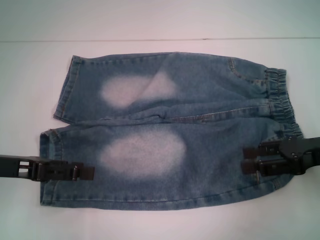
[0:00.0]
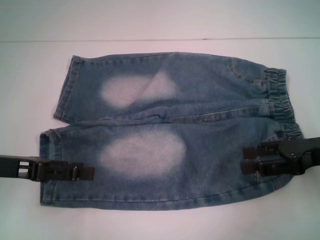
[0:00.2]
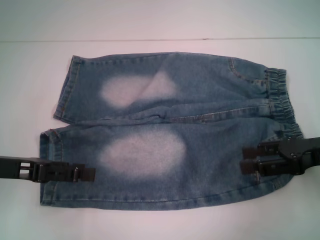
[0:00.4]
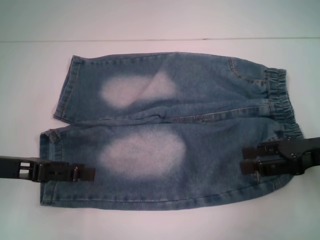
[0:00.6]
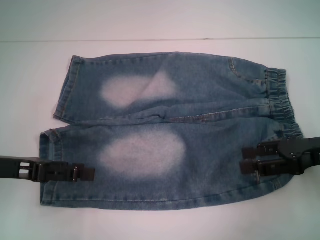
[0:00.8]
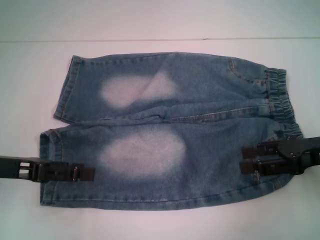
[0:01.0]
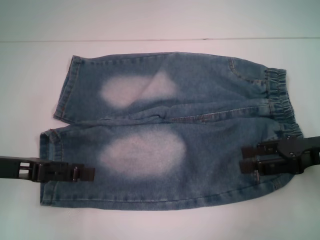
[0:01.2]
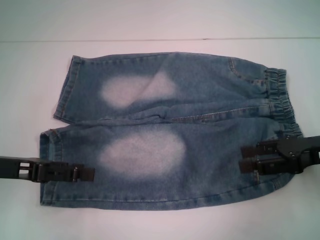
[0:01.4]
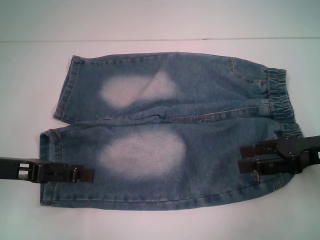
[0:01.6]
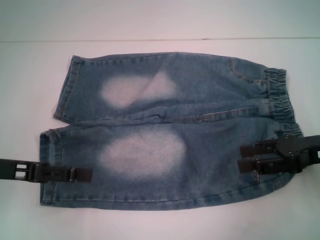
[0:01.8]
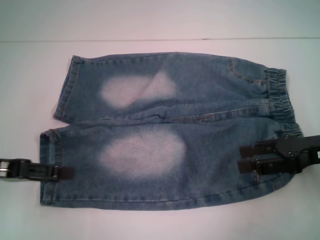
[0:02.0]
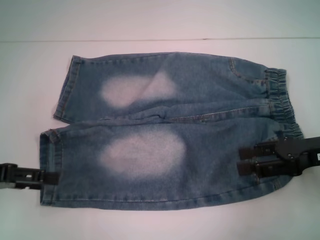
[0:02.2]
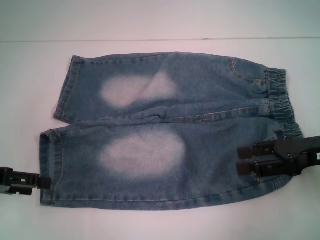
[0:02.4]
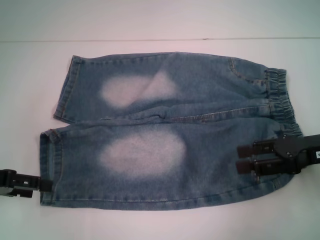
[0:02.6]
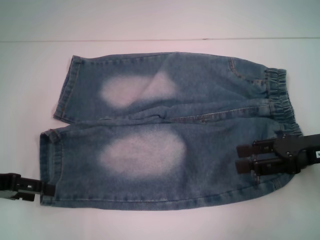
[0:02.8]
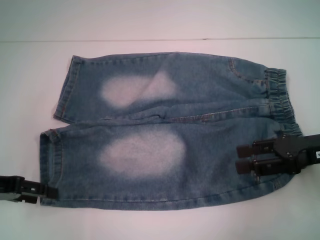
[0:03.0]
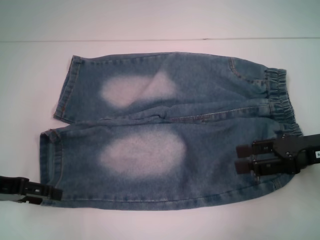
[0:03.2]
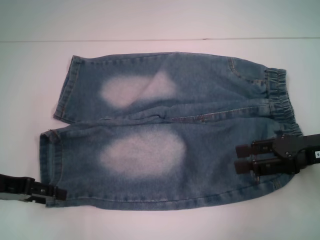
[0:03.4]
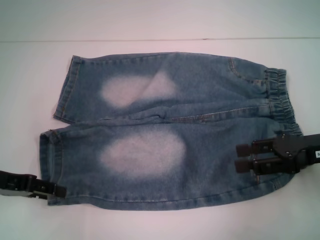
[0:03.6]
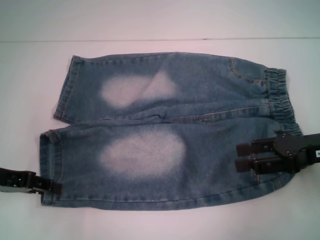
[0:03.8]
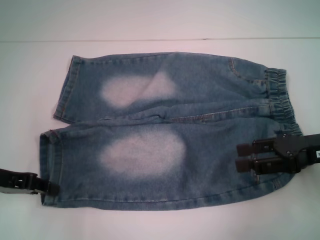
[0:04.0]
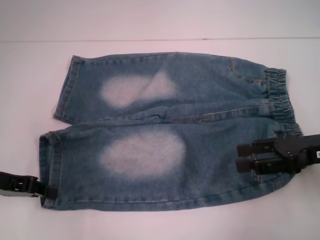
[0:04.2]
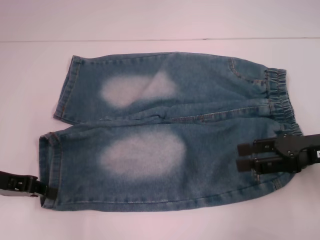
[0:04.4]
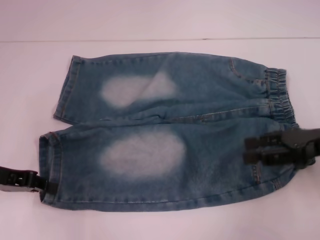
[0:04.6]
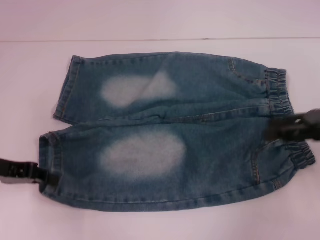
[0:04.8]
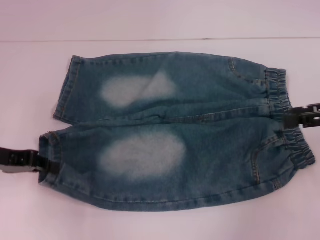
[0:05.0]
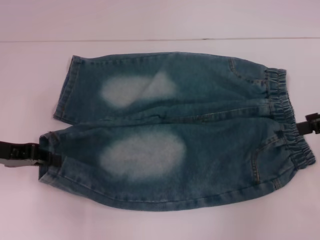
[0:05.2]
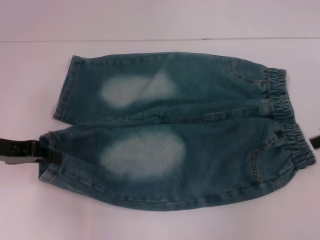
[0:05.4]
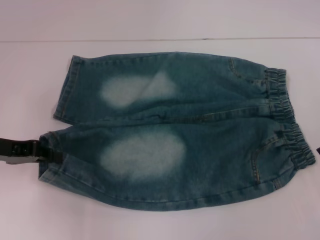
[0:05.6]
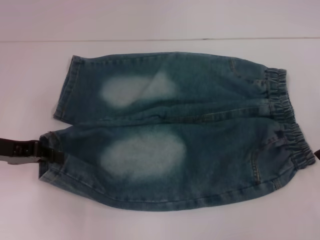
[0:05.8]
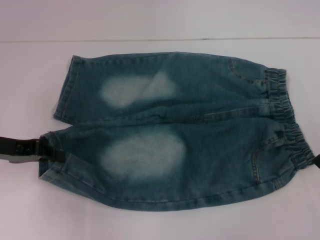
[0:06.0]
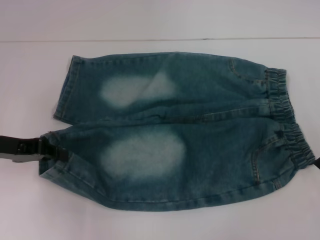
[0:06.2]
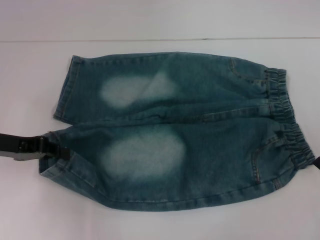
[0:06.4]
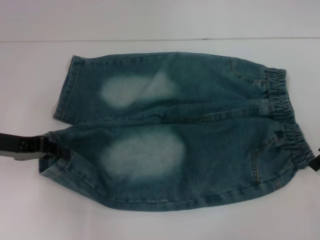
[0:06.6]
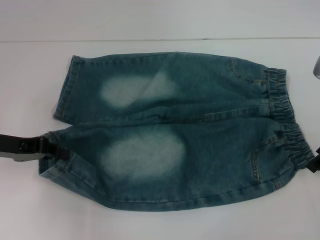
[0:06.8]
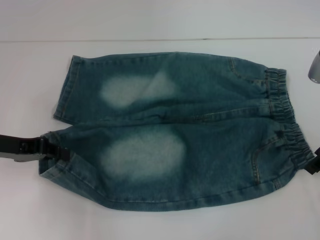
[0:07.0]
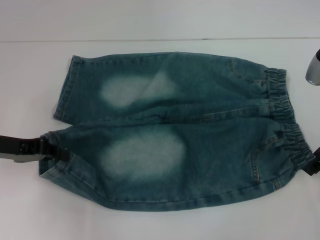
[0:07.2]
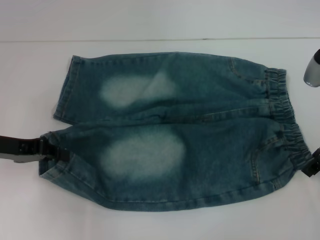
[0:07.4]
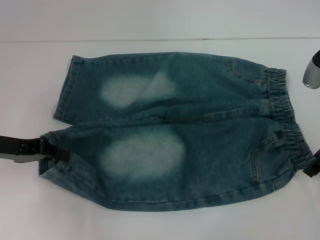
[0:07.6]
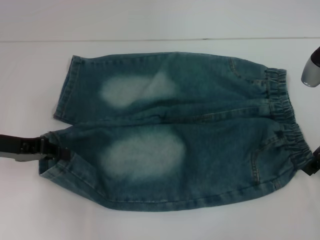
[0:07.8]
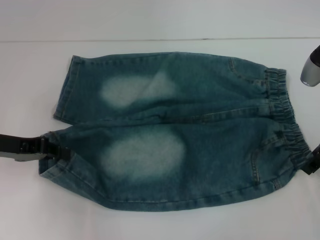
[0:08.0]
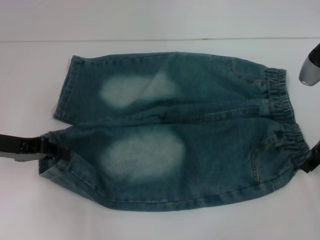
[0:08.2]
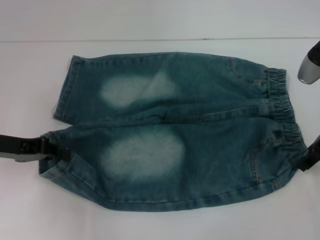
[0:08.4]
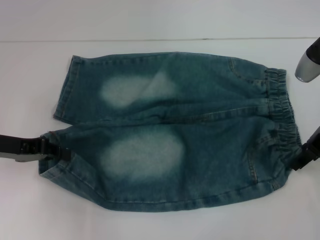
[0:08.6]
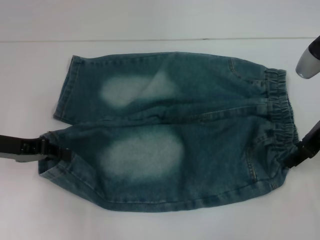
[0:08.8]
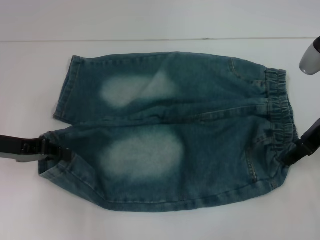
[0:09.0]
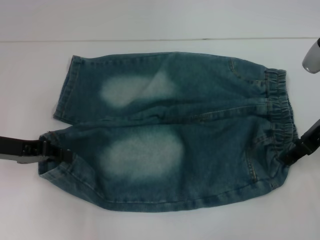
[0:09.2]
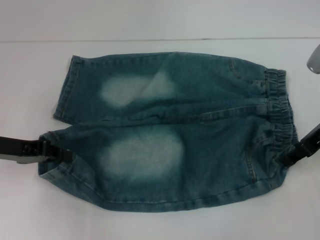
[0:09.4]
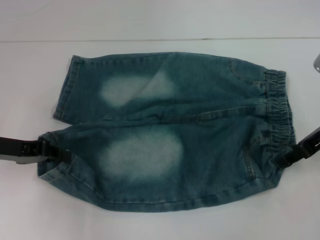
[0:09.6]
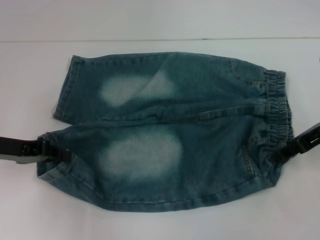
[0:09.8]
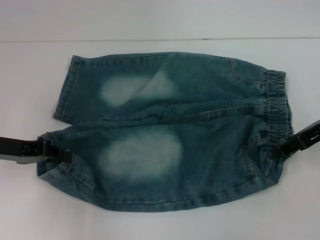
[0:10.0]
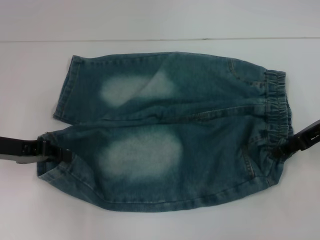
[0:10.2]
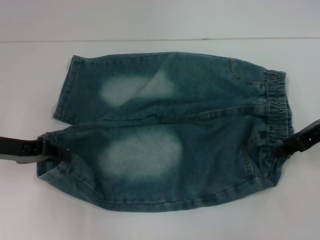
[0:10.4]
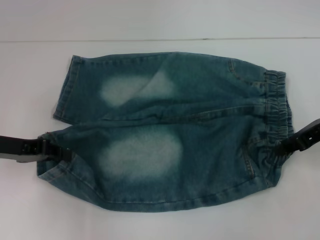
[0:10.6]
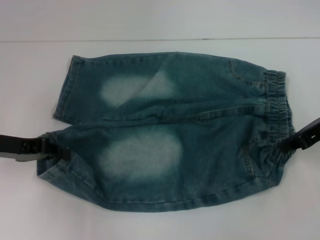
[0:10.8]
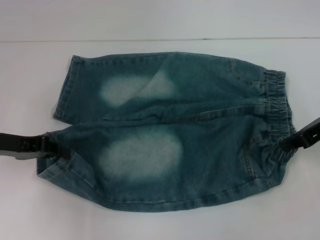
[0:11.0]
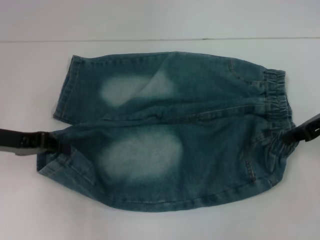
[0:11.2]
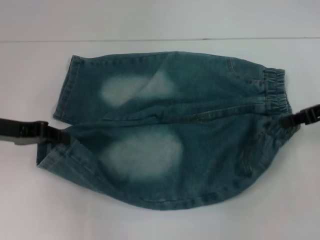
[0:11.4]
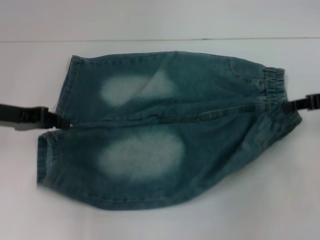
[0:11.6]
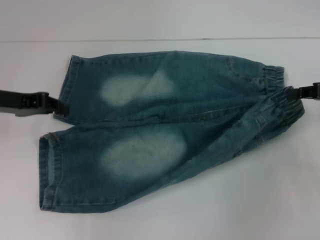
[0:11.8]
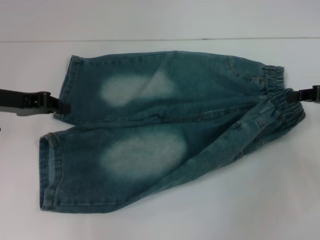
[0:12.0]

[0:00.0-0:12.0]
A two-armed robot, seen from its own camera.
Step, 0:00.0 to 0:04.2: Grab the lower left pant leg with your left hand.
Step, 0:04.6 to 0:08.6: Hold the lower right waistband with your right hand.
0:00.0 to 0:01.6: Both grippers stay put.
0:03.0 to 0:04.4: The left gripper closes.
0:04.4 to 0:06.0: The right gripper is displaced upward and forward by about 10 cm.
0:06.0 to 0:10.4: The grippers stay close to where they were, moving slightly.
0:10.4 to 0:12.0: The right gripper shifts roughly 5 cm to the right, and closes up. Meanwhile the left gripper ends up approximately 5 cm from where it was.

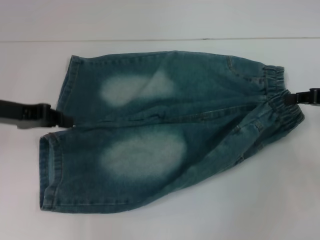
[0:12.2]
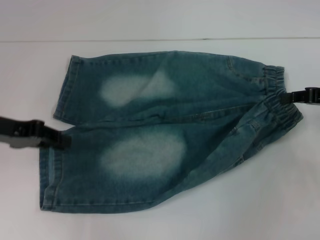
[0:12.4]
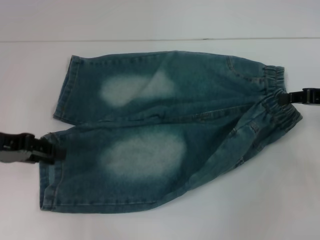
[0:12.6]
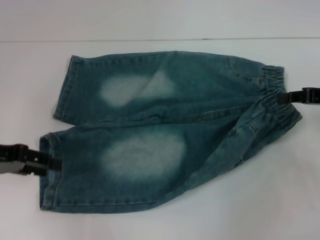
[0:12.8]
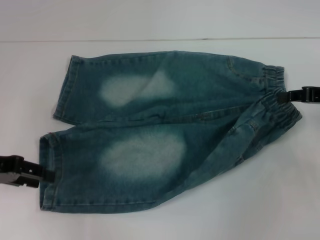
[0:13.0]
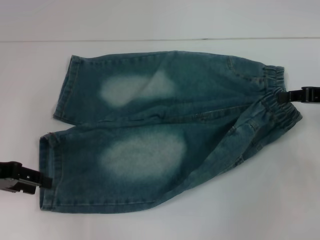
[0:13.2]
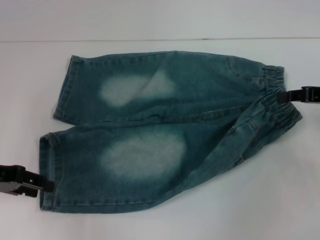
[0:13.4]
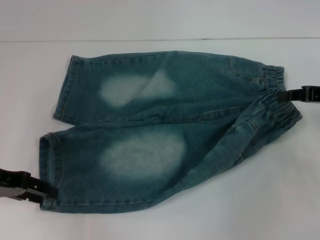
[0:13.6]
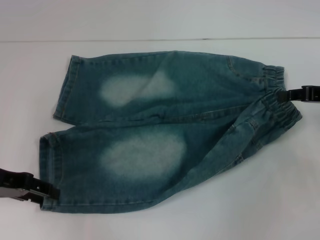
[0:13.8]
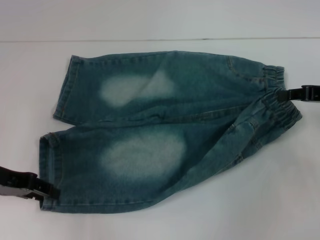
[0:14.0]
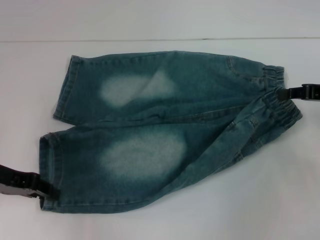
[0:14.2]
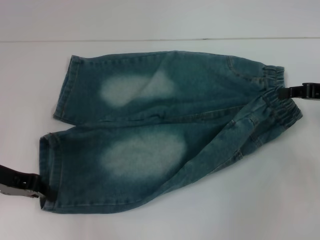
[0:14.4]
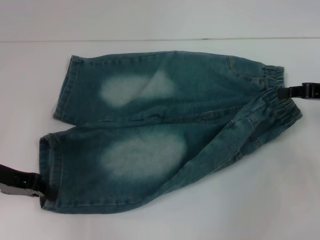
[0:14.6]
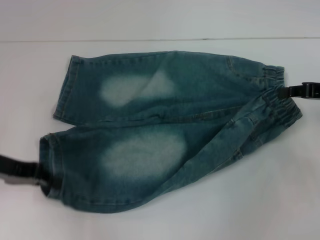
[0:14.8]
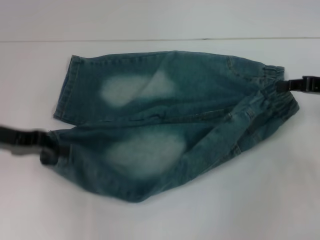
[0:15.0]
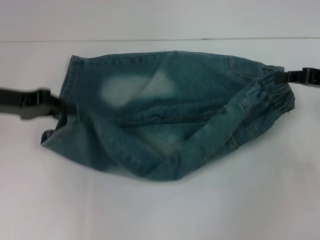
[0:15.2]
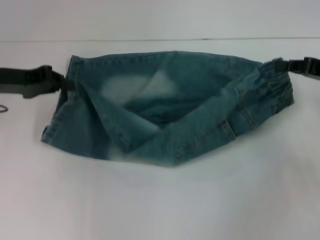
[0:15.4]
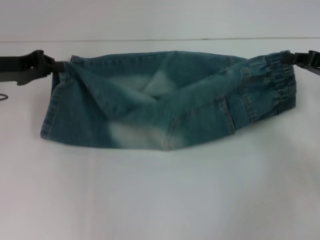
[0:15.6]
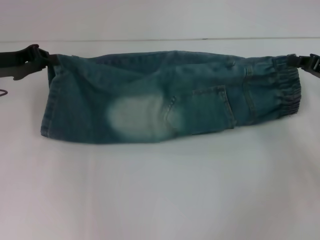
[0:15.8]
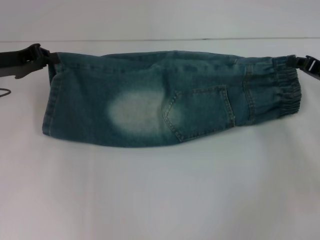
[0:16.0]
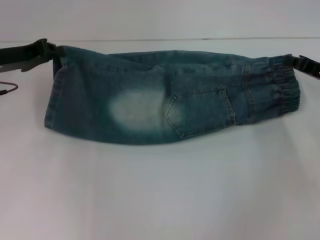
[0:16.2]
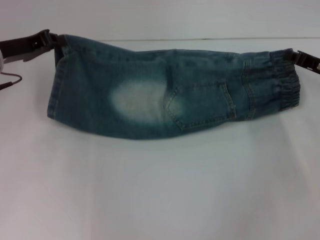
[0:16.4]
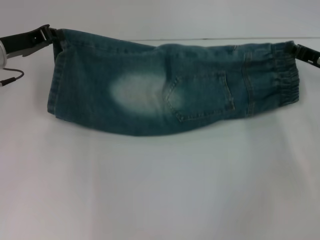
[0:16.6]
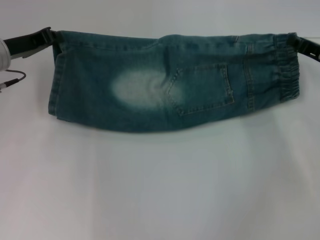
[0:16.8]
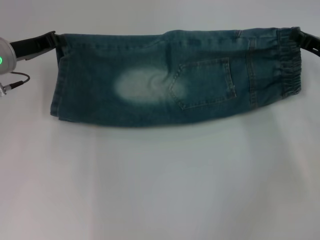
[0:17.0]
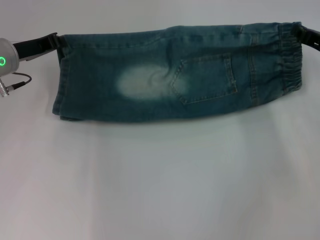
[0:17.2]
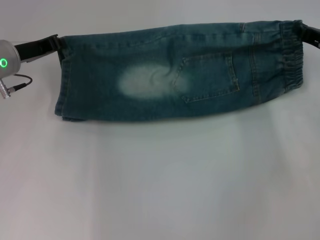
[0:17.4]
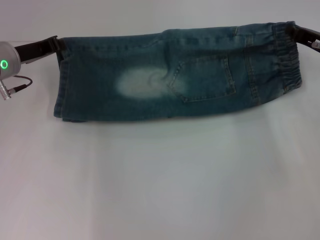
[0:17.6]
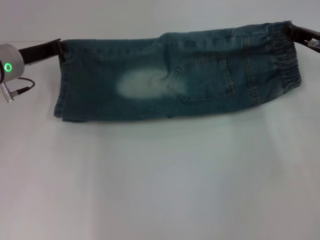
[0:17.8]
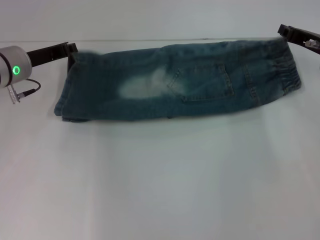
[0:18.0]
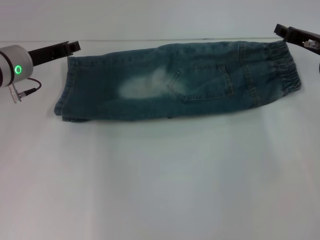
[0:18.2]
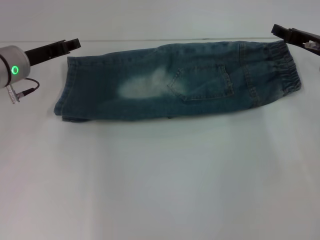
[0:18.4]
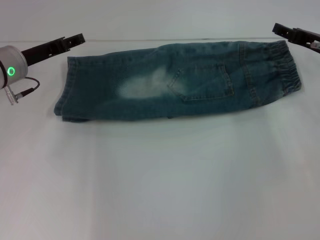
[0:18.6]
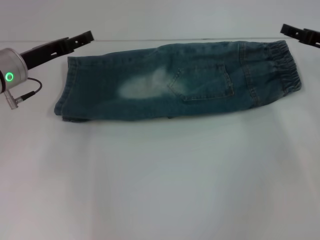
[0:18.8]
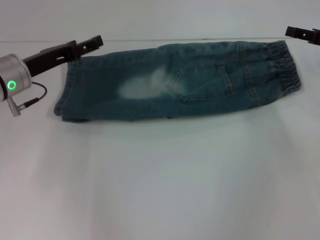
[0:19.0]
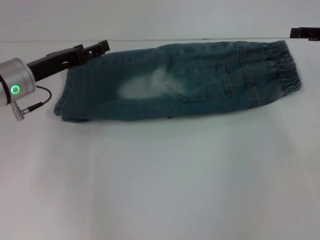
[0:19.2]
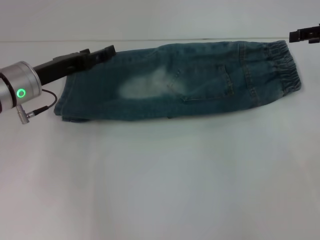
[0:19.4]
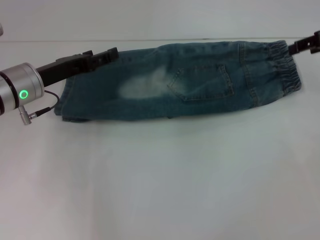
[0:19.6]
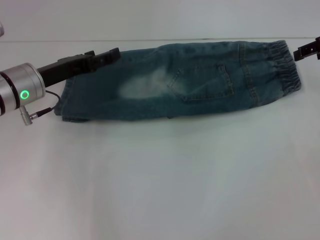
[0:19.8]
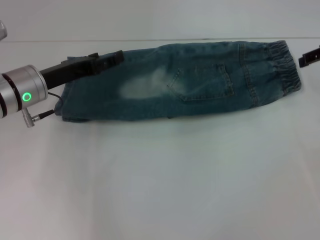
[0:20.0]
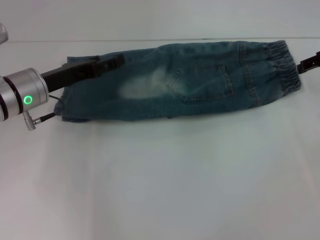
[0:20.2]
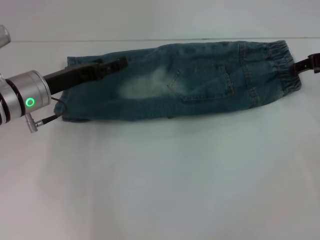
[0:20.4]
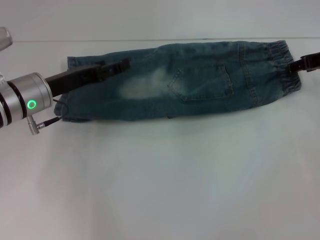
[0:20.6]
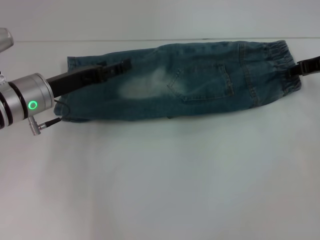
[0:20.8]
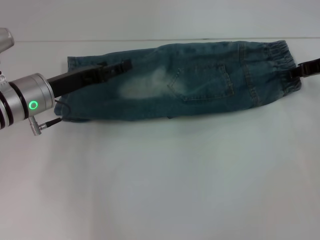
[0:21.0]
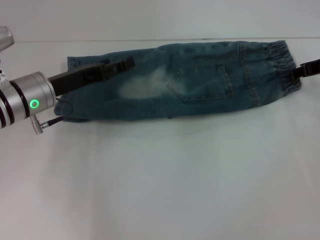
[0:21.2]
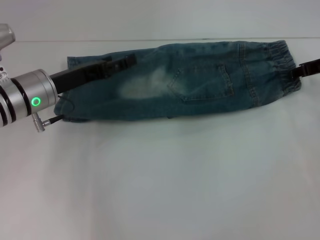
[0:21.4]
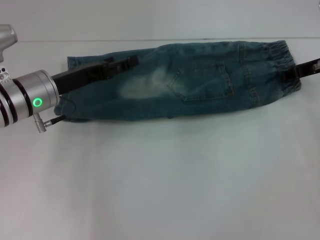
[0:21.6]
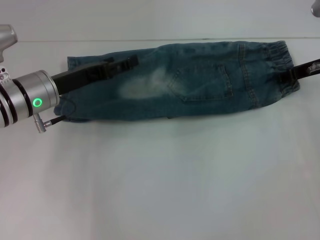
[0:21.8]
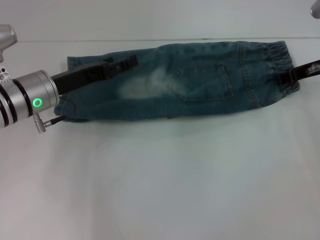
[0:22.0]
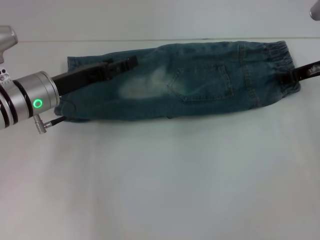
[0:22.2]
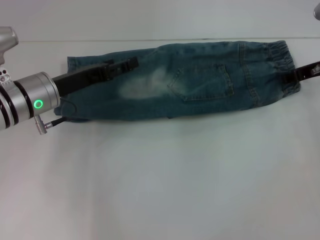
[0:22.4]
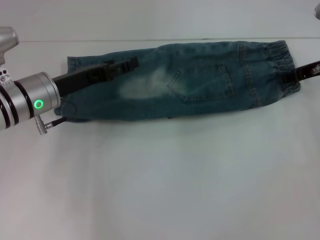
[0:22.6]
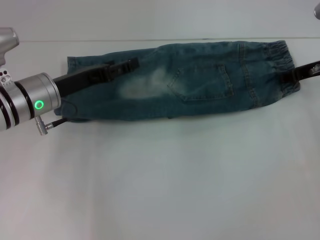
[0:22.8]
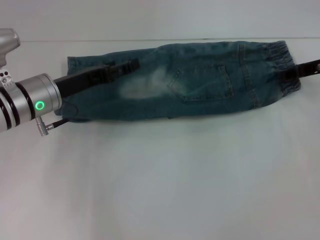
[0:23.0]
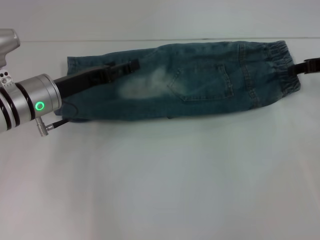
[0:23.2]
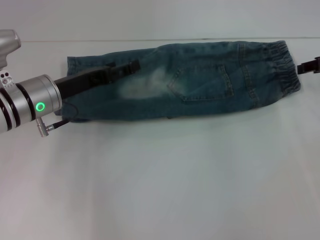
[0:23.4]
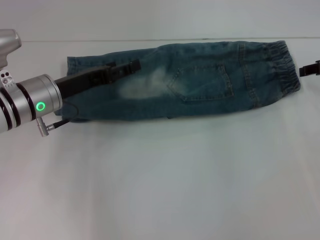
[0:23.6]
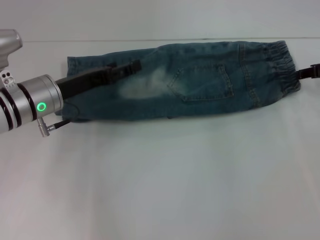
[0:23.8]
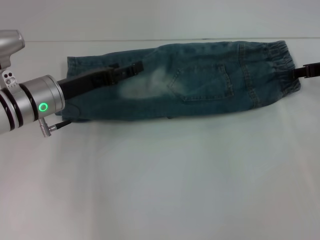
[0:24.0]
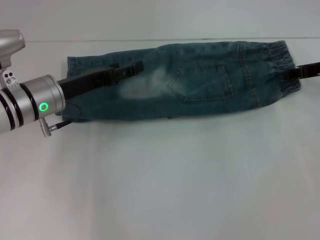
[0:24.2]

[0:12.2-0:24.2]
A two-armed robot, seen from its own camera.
Step, 0:12.2 to 0:19.6: Fold upward with your right hand.
Step, 0:19.8 to 0:22.8: Grab the waistband with your right hand.
0:12.2 to 0:13.8: The left gripper goes approximately 5 cm backward, and opens its fingers.
0:13.8 to 0:15.2: The left gripper goes some 5 cm forward, and closes its fingers.
0:15.2 to 0:16.6: The right gripper ends up some 5 cm from where it was. Meanwhile the left gripper goes about 5 cm forward.
0:16.6 to 0:18.2: The grippers stay close to where they were, moving slightly.
0:18.2 to 0:19.8: The left gripper opens its fingers; the right gripper shifts roughly 10 cm upward, and opens its fingers.
0:19.8 to 0:21.2: The right gripper goes roughly 5 cm downward.
0:21.2 to 0:24.2: The grippers move only a little.
